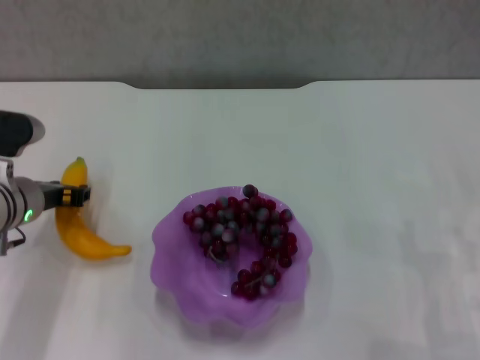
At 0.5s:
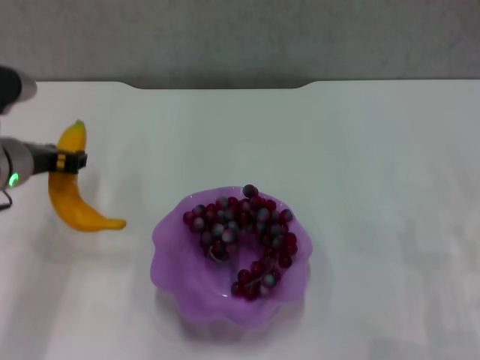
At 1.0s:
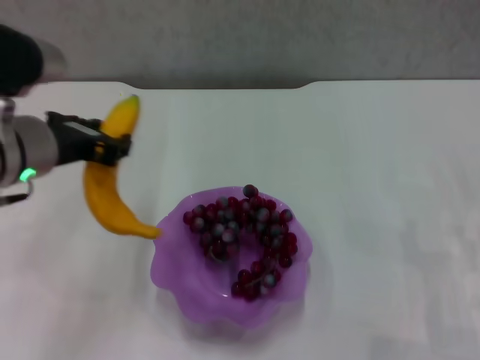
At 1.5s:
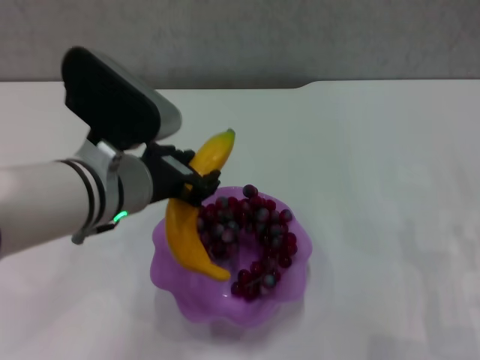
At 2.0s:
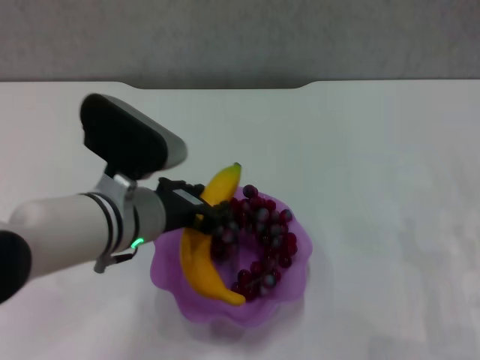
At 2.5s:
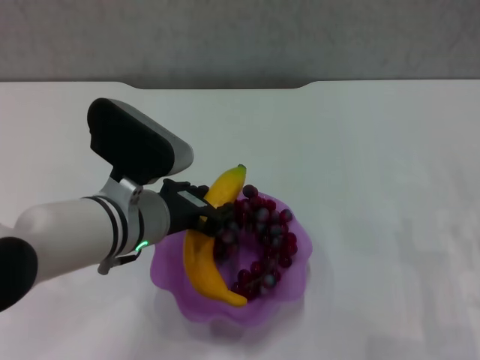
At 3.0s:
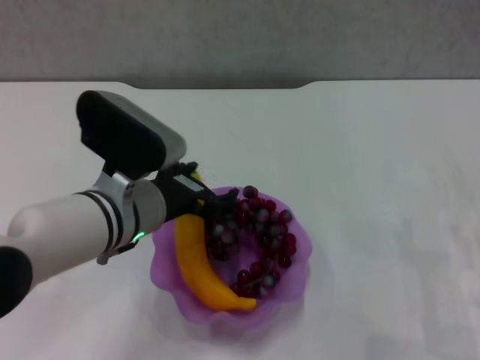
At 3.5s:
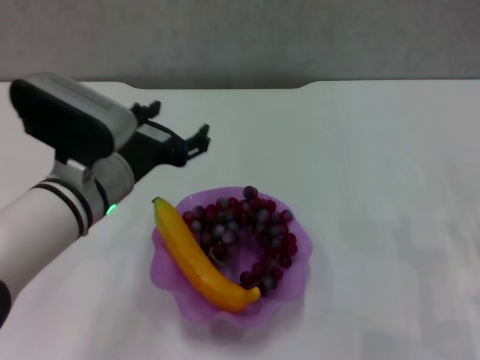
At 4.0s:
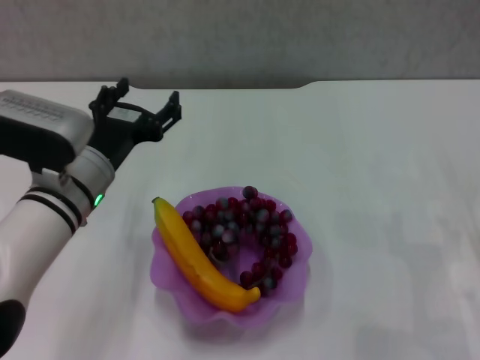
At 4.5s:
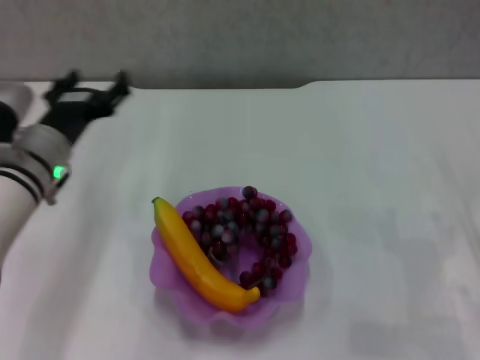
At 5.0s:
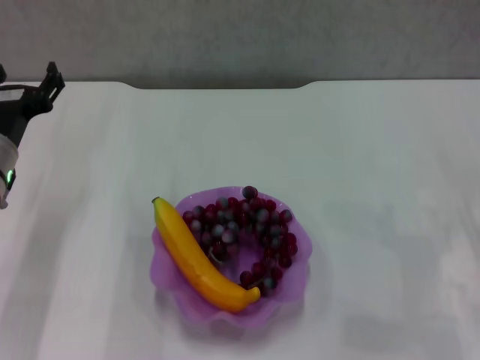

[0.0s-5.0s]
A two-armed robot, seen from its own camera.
Step, 0.0s to 2.5s: Place the banana in the purple plate with left gripper.
0.0s to 2.5s: The left gripper moves to the right and backward, some 15 cm.
2.5s to 5.0s: The left gripper moves to the left and forward, some 15 cm, and opens its fingers.
